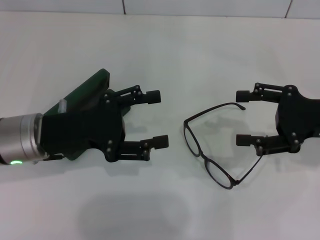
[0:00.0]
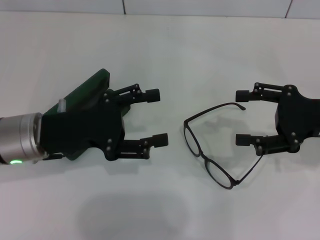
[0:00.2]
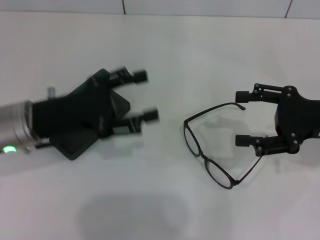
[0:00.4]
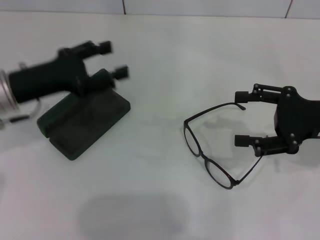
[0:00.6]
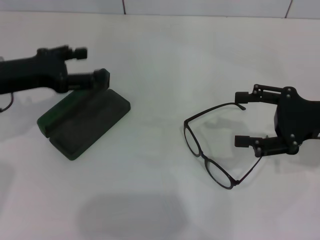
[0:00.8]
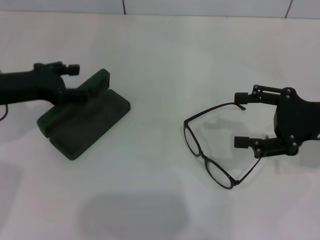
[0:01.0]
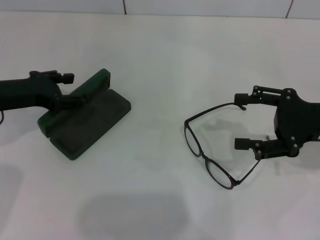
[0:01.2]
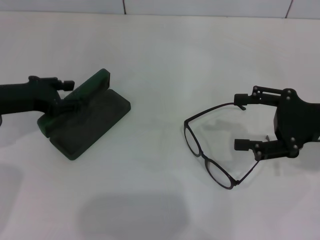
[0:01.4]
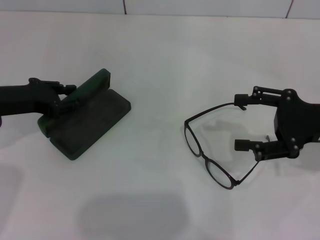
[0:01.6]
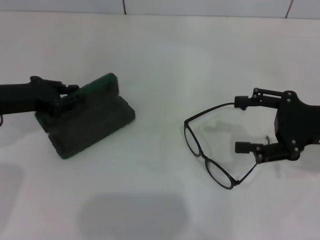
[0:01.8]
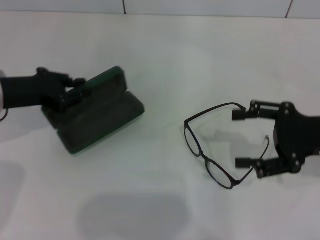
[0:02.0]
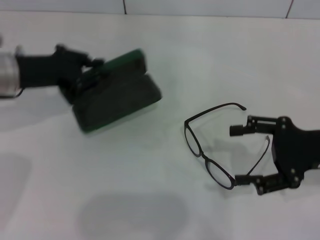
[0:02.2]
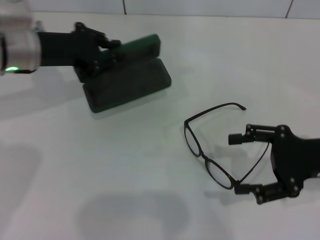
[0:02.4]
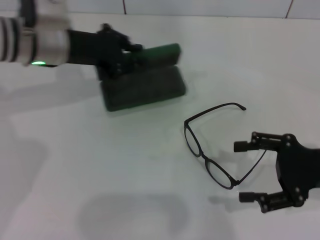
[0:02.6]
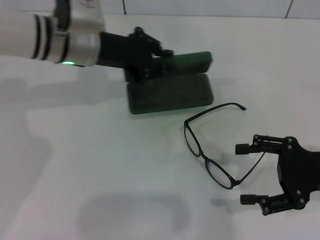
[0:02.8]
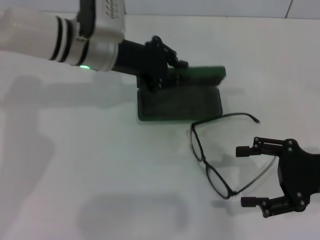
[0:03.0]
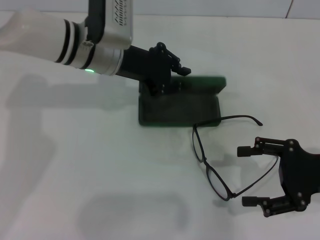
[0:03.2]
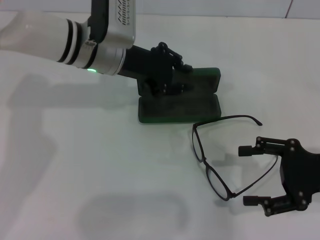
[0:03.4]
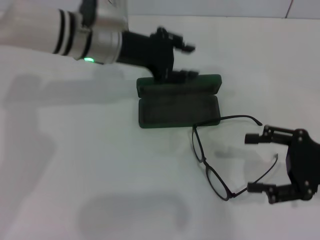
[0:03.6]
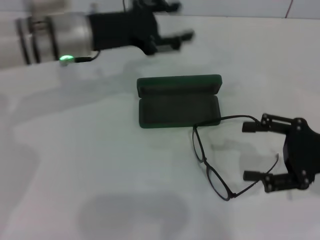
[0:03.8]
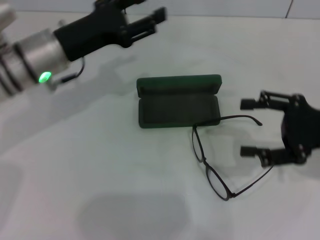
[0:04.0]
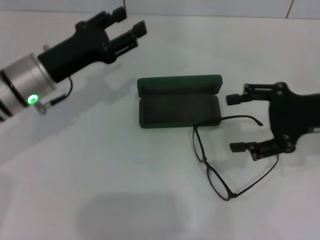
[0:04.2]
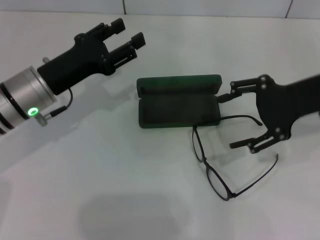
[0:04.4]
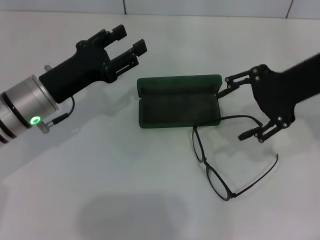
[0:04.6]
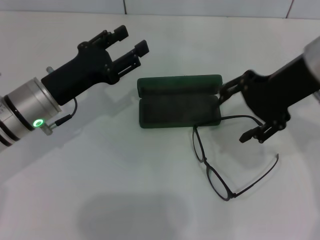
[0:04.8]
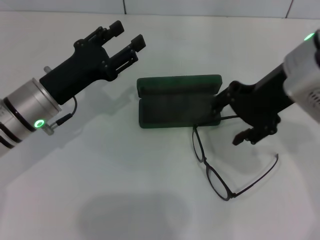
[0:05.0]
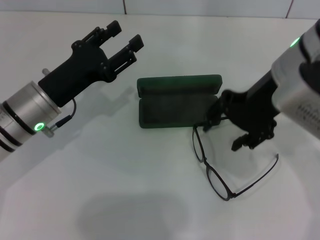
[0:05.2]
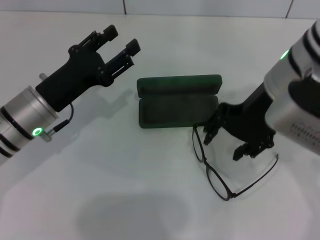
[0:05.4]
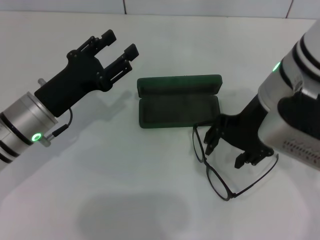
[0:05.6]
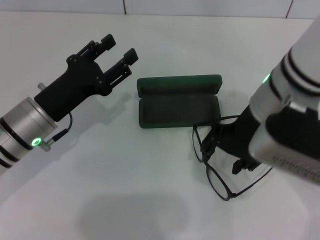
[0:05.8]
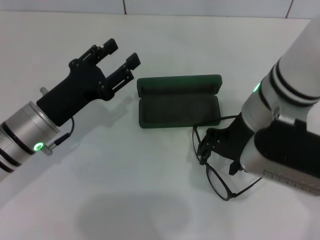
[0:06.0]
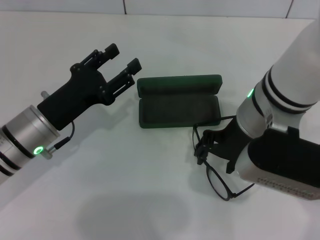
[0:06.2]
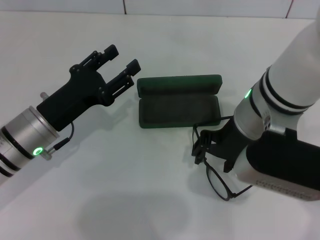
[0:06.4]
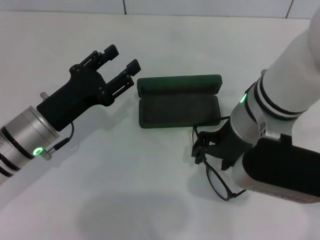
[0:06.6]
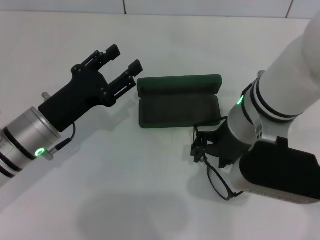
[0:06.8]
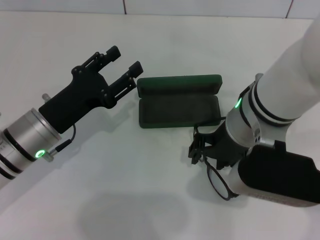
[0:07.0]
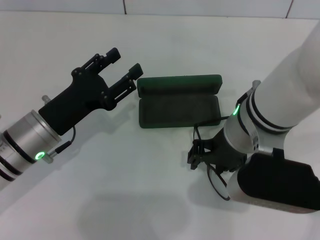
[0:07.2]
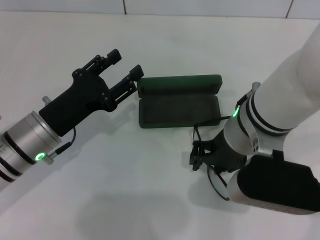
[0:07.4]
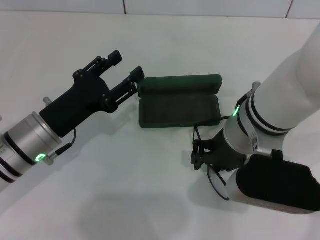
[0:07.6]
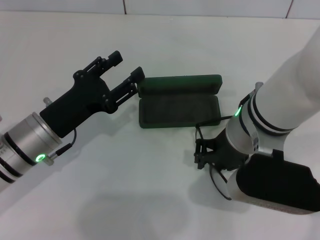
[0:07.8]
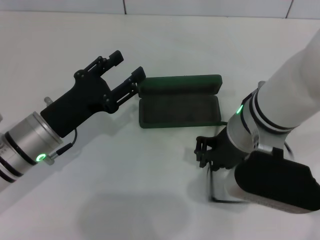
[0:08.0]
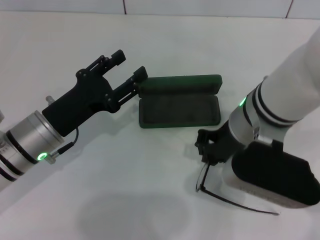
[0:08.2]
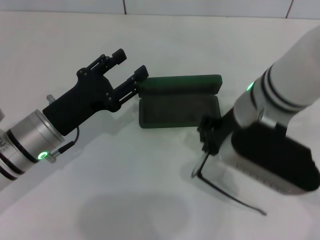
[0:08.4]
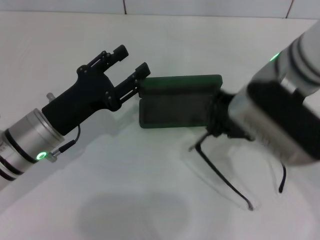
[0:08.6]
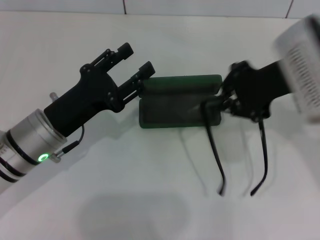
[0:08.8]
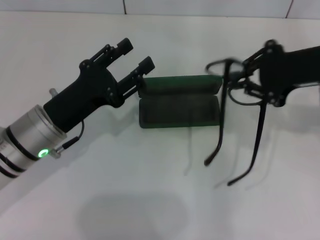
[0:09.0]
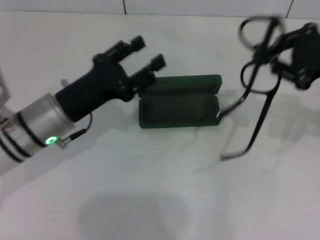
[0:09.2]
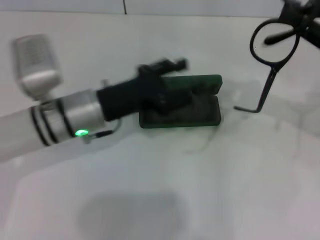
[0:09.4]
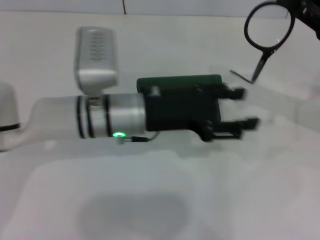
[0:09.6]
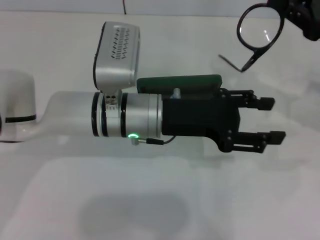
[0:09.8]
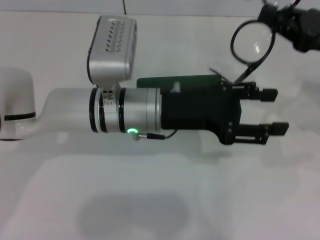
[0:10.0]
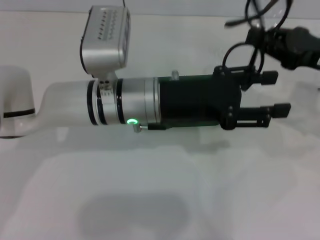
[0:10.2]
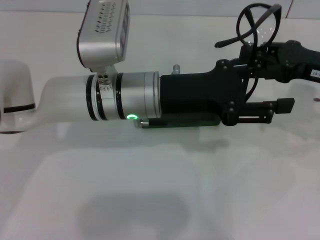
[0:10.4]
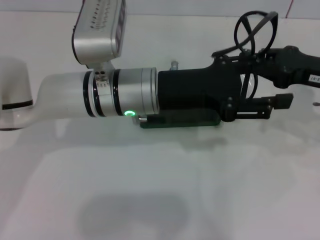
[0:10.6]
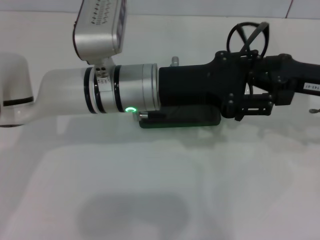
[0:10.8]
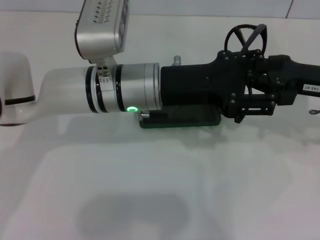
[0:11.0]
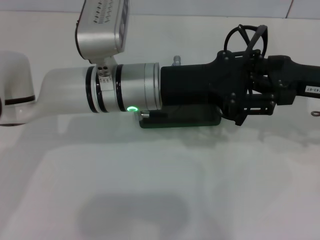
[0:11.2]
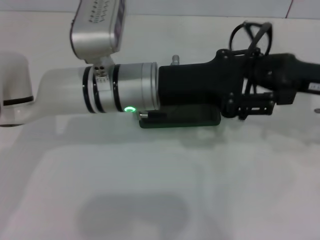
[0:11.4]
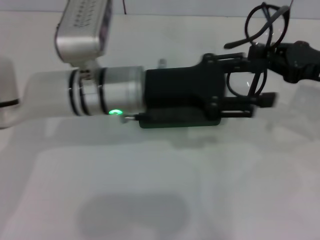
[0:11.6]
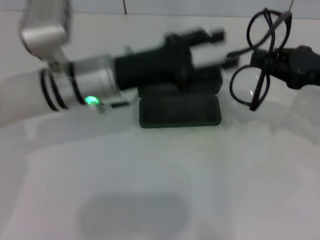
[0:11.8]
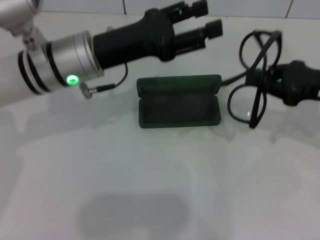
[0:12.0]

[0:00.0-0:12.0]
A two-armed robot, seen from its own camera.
Step, 0:00.0 to 0:01.6: Grab the glasses case with your left hand.
Step, 0:01.8 to 0:03.4: Place the glasses case in the center of the table with your left hand.
Step, 0:03.6 to 0:08.0: Grab the eyeglass frame with your right hand.
0:00.0 to 0:01.6: The left gripper shifts approximately 10 cm to the left, and closes its fingers.
0:01.6 to 0:03.0: The left gripper travels to the right and forward by roughly 20 cm, and closes up. Meanwhile the right gripper changes place by some 5 cm.
0:03.0 to 0:04.4: The left gripper is displaced to the left and backward by about 10 cm, and opens up. Meanwhile the right gripper moves upward and forward, some 10 cm.
0:04.4 to 0:06.0: The left gripper changes place by about 5 cm, while the right gripper shifts about 15 cm to the left.
0:07.6 to 0:09.0: The right gripper moves to the right, approximately 15 cm, and closes up.
0:09.0 to 0:10.4: The left gripper goes about 15 cm to the right, upward and forward. Meanwhile the right gripper is displaced downward by some 5 cm.
0:10.4 to 0:12.0: The left gripper shifts roughly 5 cm to the left.

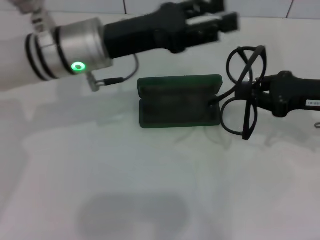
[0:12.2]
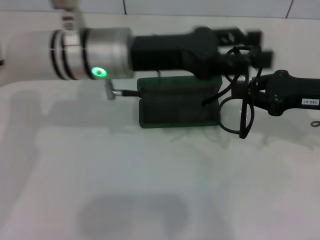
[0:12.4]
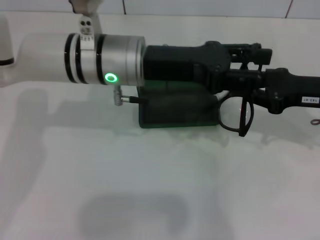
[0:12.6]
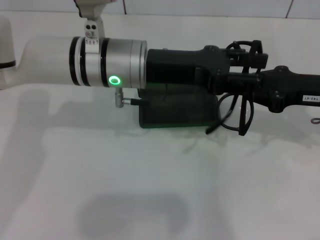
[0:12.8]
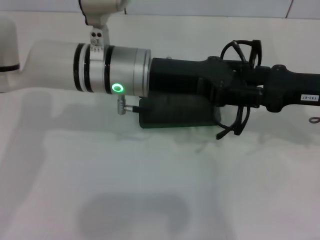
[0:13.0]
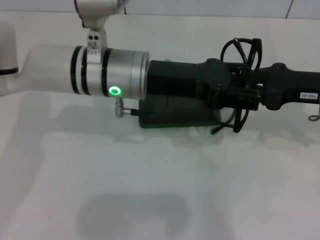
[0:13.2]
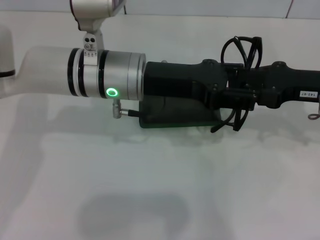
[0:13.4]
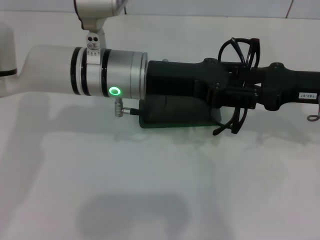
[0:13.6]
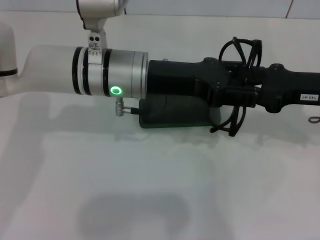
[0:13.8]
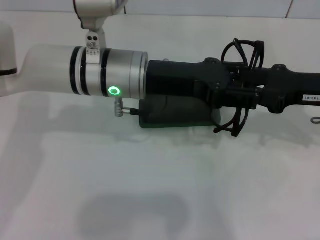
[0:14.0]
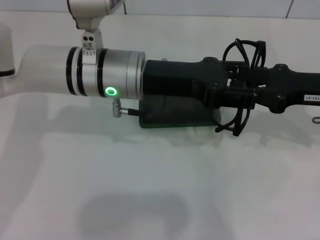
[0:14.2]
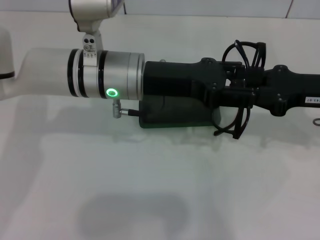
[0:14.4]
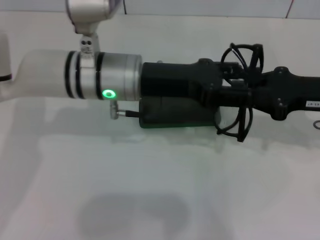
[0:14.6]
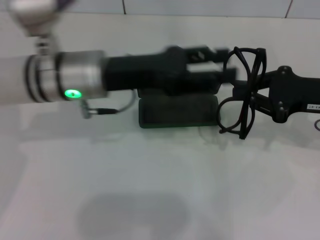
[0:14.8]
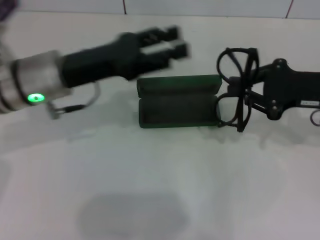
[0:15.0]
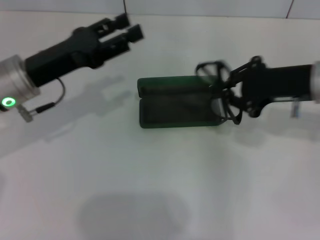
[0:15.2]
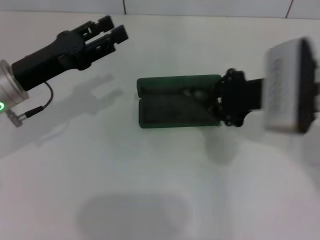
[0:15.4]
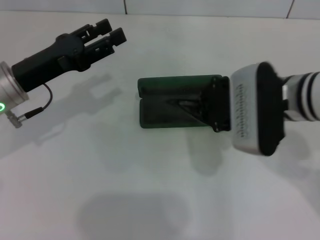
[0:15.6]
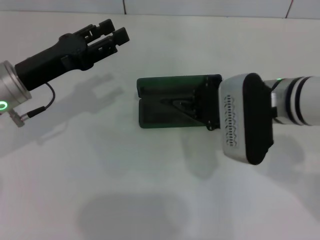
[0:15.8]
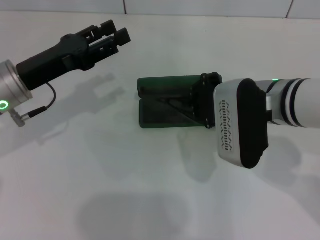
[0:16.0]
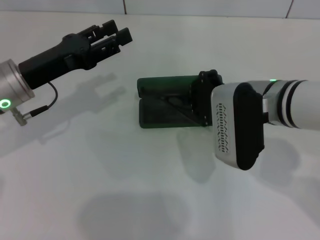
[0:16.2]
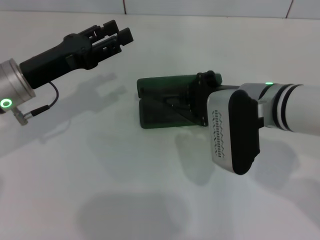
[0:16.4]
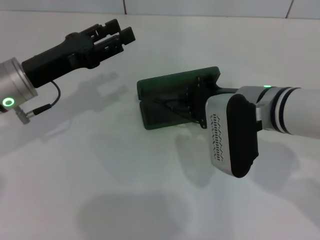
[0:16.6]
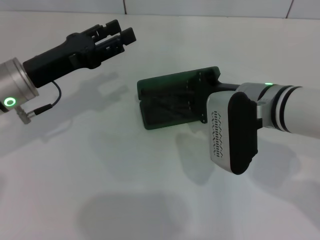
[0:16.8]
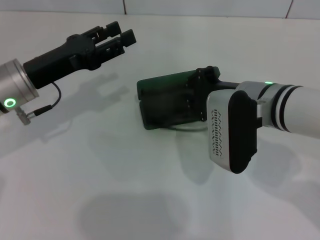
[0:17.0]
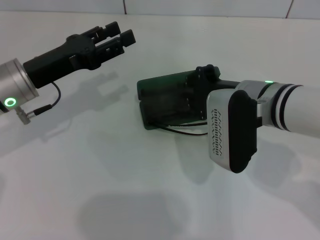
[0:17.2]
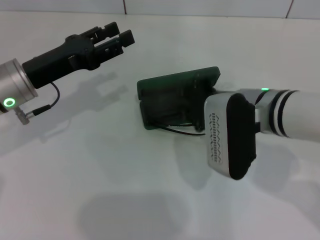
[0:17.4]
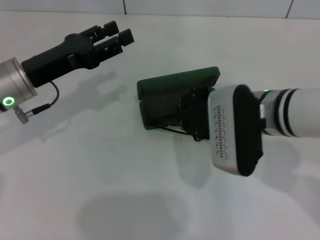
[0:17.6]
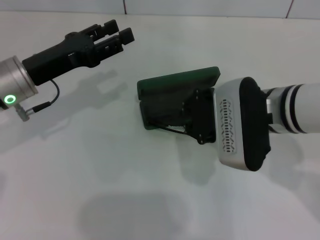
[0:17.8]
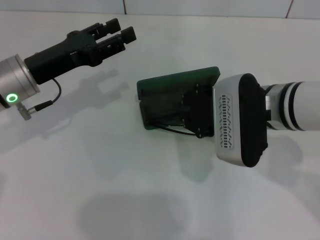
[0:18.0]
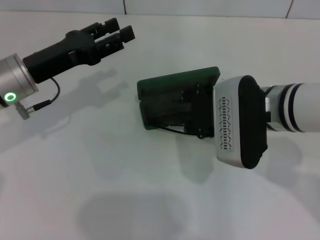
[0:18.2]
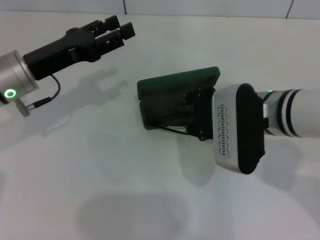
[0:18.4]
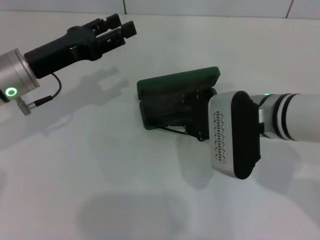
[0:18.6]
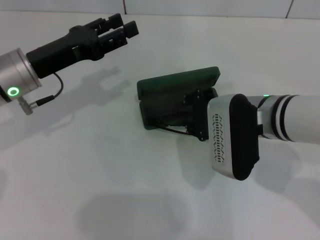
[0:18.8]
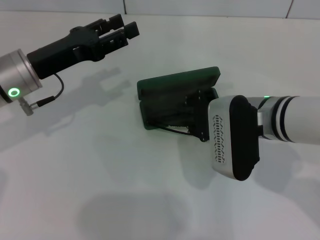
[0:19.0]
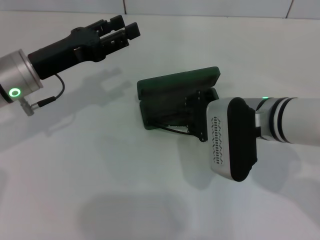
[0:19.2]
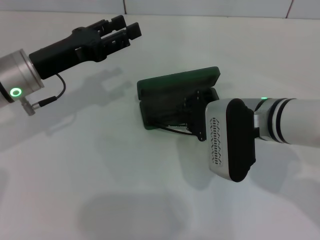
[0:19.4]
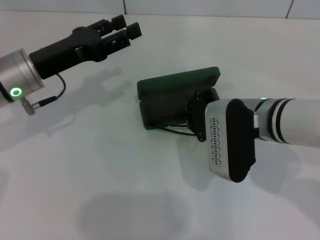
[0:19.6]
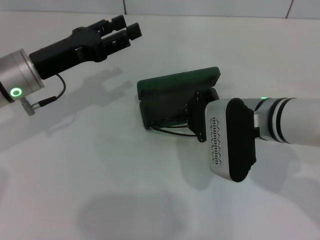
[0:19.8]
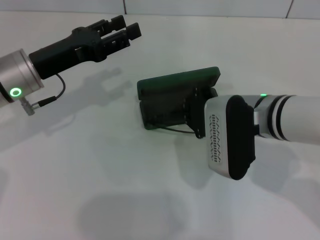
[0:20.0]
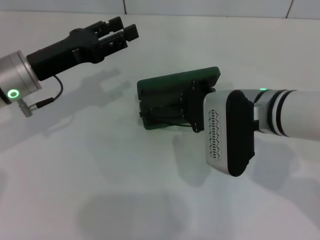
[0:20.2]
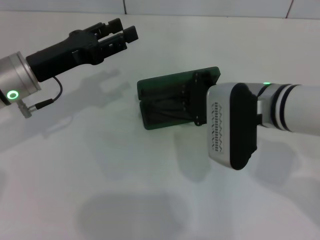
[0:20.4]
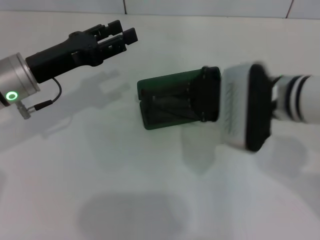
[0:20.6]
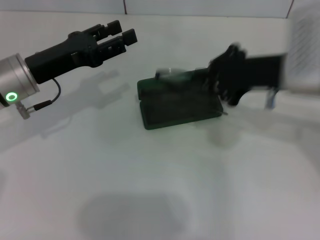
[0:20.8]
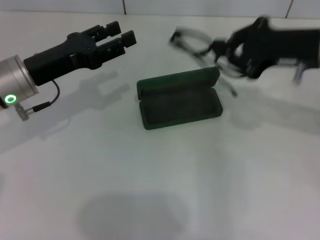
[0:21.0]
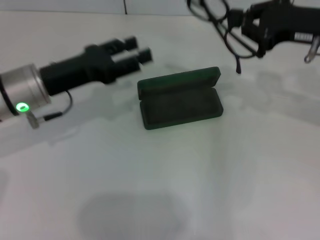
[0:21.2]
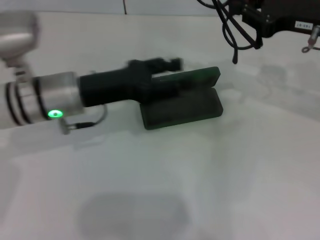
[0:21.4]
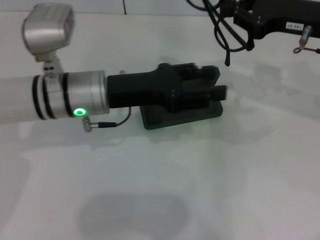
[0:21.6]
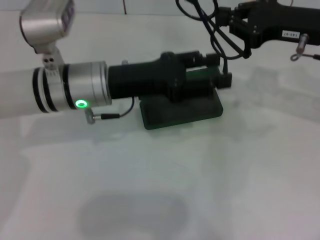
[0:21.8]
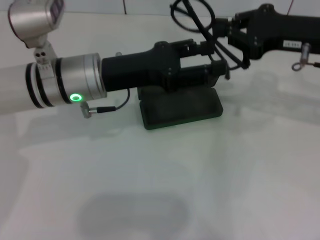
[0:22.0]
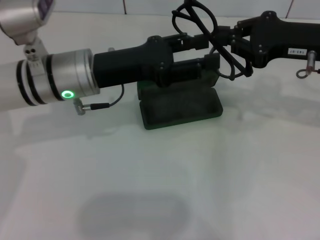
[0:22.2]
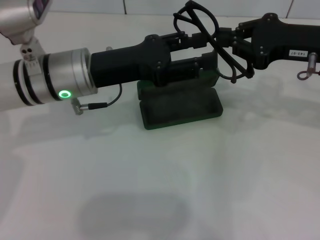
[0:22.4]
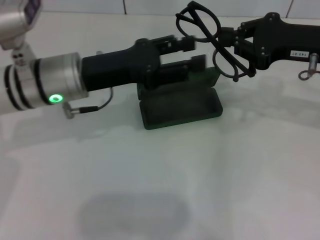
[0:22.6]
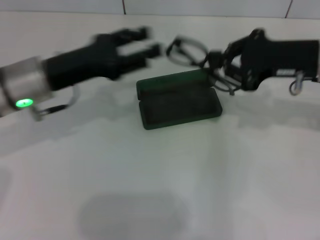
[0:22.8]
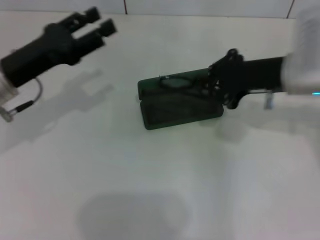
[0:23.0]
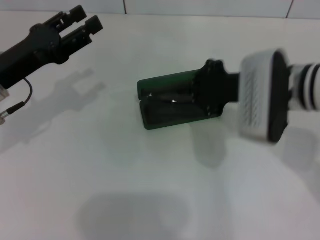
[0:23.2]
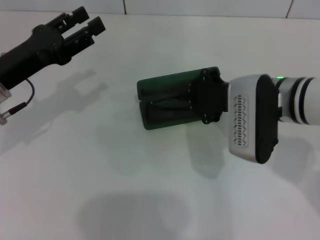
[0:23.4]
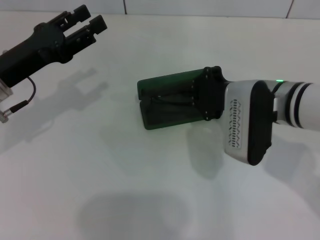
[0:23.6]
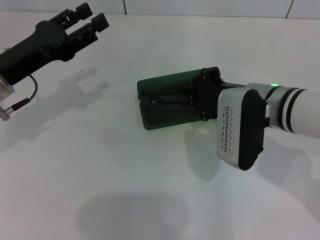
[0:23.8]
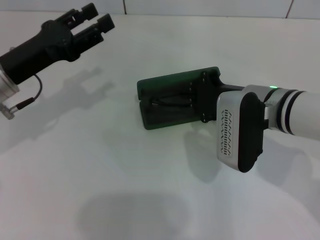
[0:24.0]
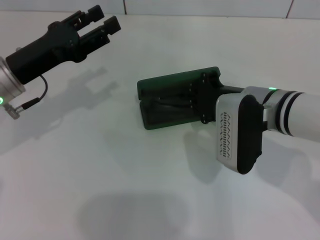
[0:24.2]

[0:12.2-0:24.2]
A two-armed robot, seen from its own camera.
Step, 0:12.2 to 0:14.4: Fold the frame with your left hand.
0:12.2 to 0:13.8: The left gripper ends up approximately 5 cm from where it was.
0:13.8 to 0:15.2: The left gripper heads to the left, covering some 15 cm.
0:15.2 to 0:16.6: The right gripper shifts roughly 10 cm to the left.
0:16.6 to 0:19.8: The grippers stay close to where they were, moving slightly.
0:19.8 to 0:21.2: The right gripper travels to the right, upward and forward by some 15 cm.
0:22.6 to 0:24.2: The right gripper moves to the left and downward, approximately 15 cm. The left gripper travels to the left by some 10 cm.
